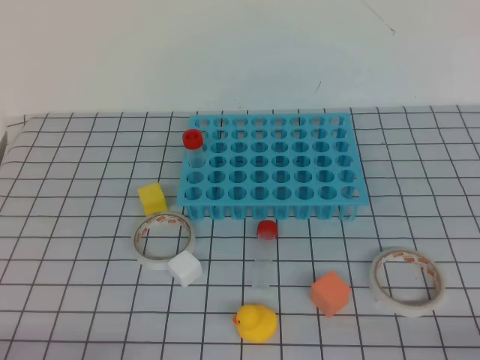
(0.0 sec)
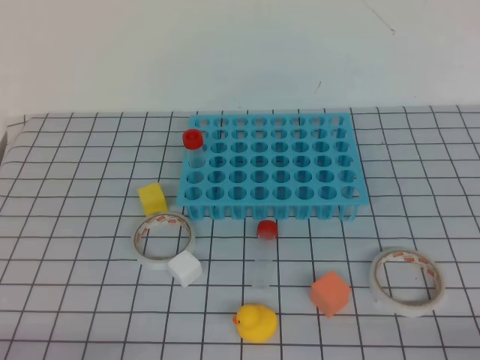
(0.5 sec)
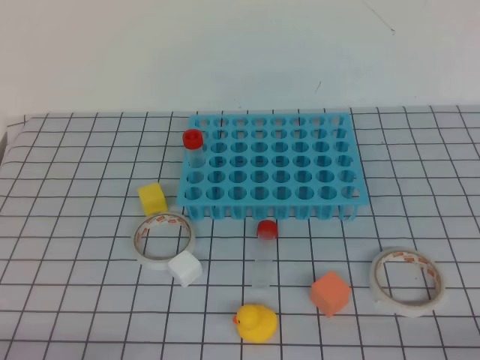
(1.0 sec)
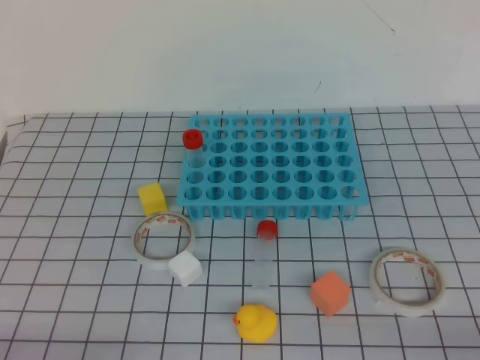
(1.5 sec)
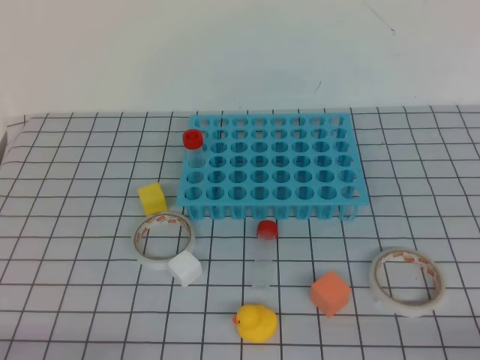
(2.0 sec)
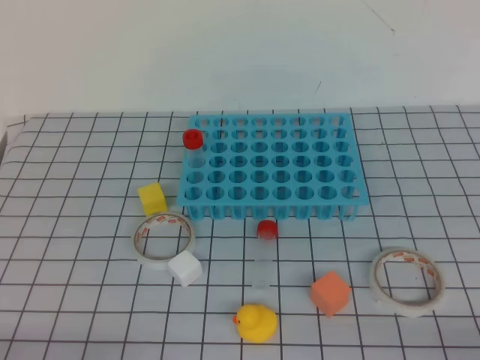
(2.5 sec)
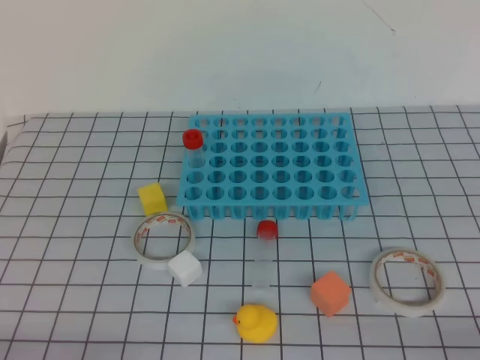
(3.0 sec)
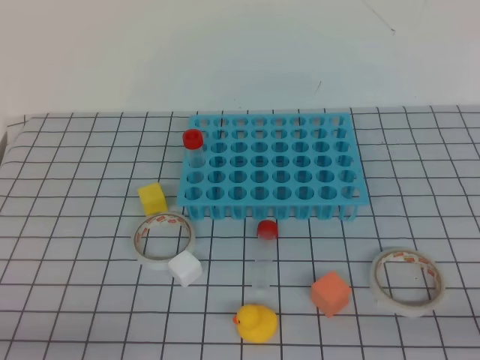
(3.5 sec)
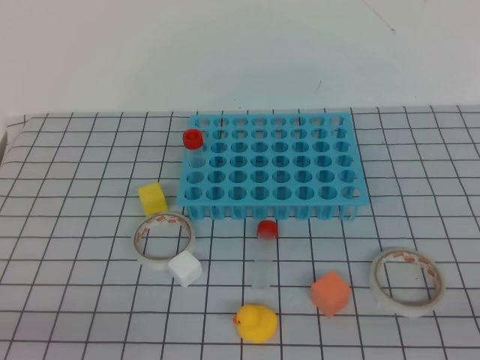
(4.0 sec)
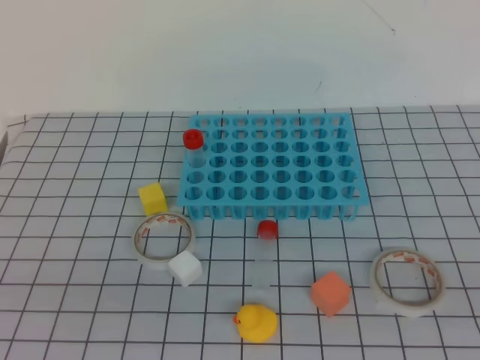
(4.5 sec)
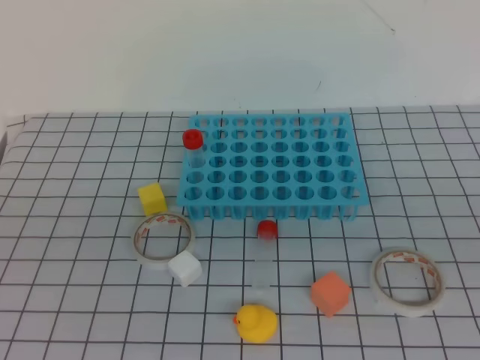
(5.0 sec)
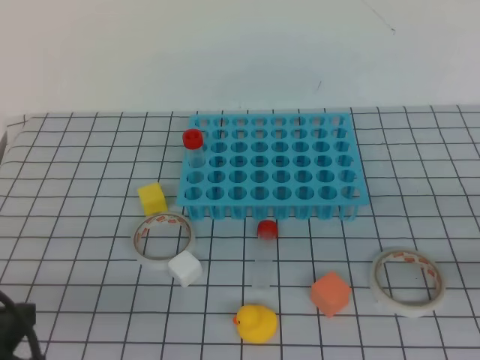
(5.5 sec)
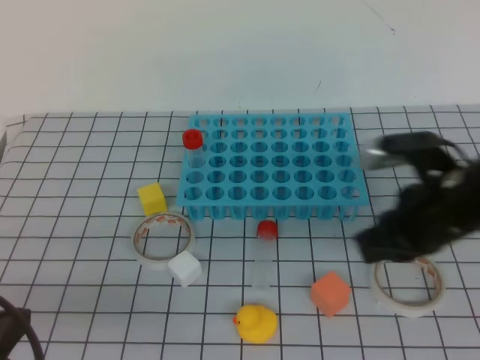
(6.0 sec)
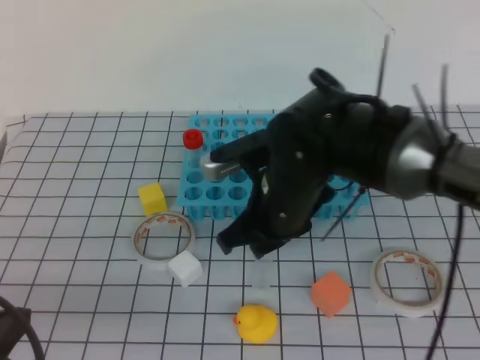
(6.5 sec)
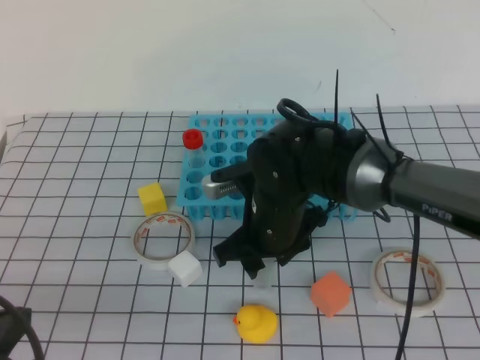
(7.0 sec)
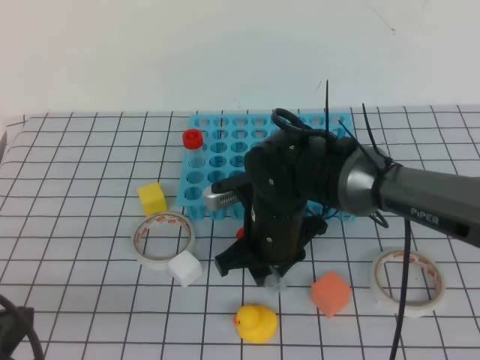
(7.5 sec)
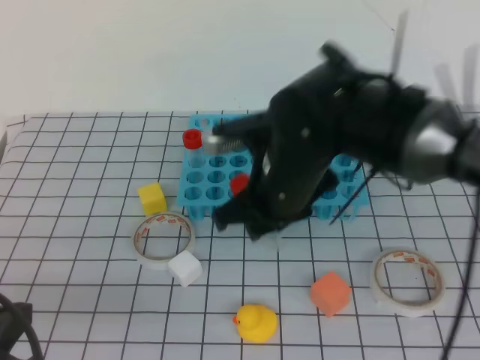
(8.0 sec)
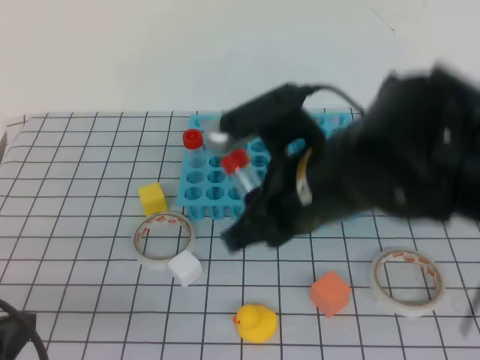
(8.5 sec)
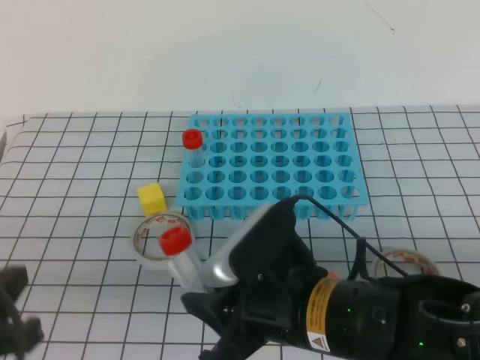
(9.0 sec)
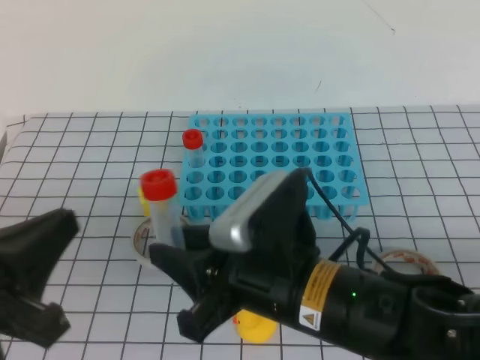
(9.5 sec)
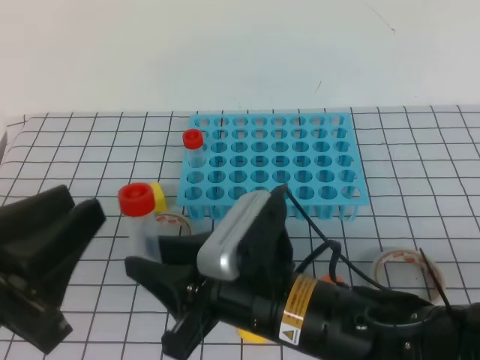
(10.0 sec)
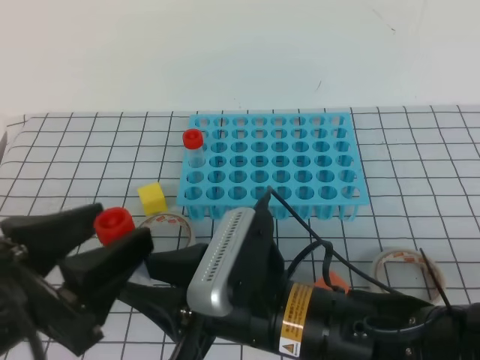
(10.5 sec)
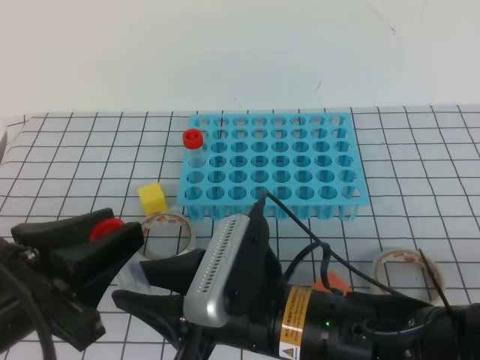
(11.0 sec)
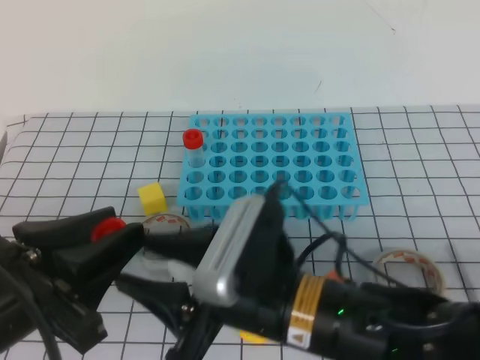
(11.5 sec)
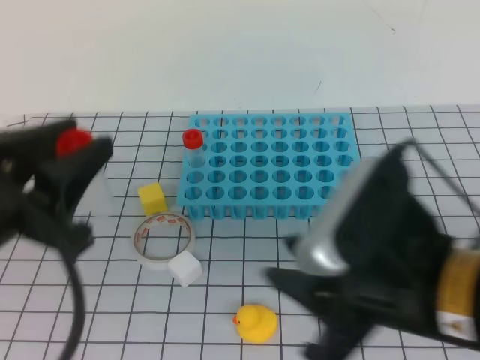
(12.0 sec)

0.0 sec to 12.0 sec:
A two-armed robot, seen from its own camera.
0.0 sec to 2.0 sec: The two grippers keep their place.
4.0 sec to 6.0 sec: The left gripper is displaced forward by about 5 cm, and travels upward and back again, approximately 10 cm each way; the right gripper moves forward and to the left, roughly 25 cm.
6.0 sec to 8.0 sec: The right gripper travels to the left by about 20 cm, and opens its fingers.
8.0 sec to 10.0 sec: The left gripper changes place by roughly 5 cm, and opens its fingers. Meanwhile the right gripper moves backward, some 15 cm.
10.0 sec to 12.0 sec: The left gripper heads forward, covering about 5 cm, and opens, then closes again. Meanwhile the right gripper heads to the right and upward, covering some 10 cm.

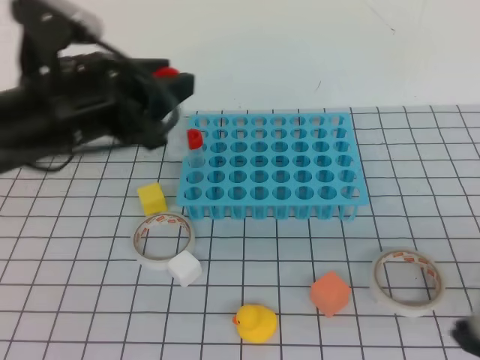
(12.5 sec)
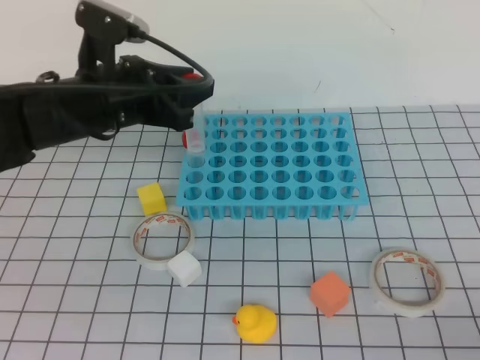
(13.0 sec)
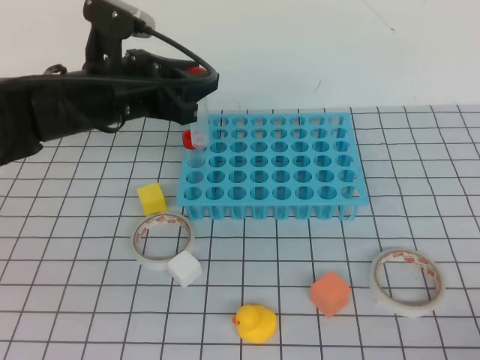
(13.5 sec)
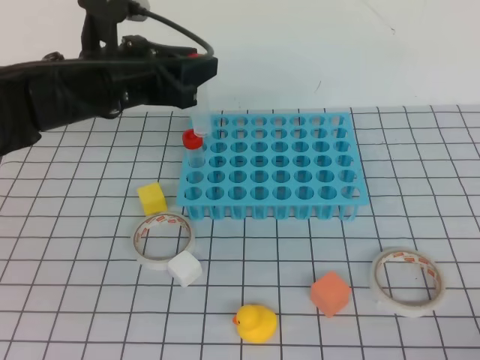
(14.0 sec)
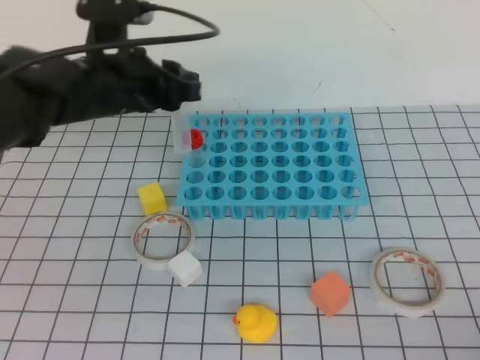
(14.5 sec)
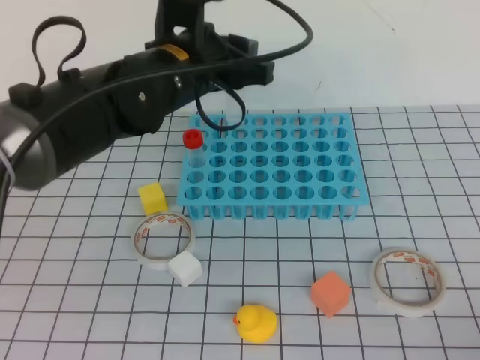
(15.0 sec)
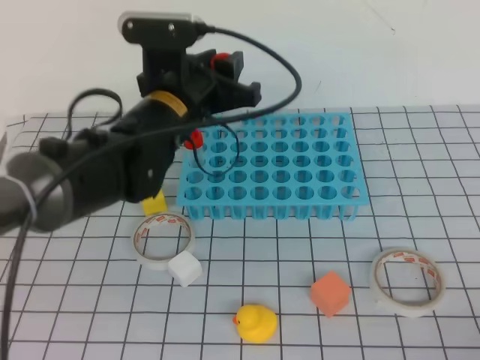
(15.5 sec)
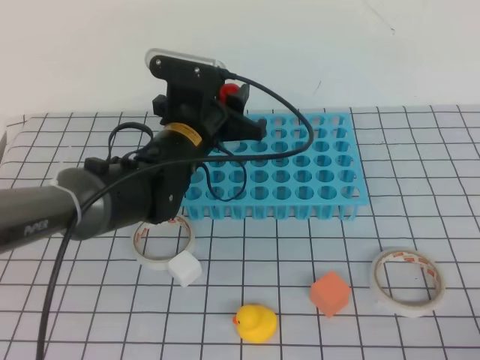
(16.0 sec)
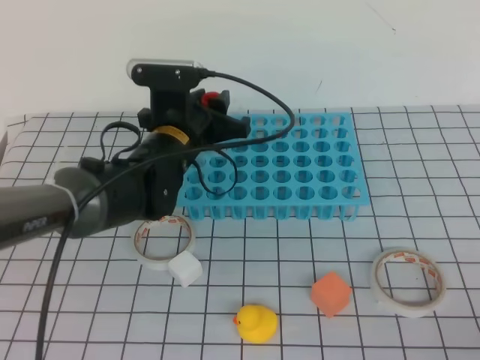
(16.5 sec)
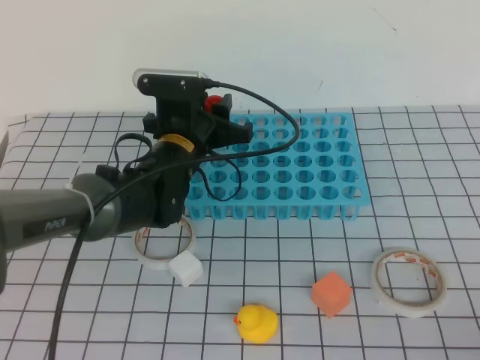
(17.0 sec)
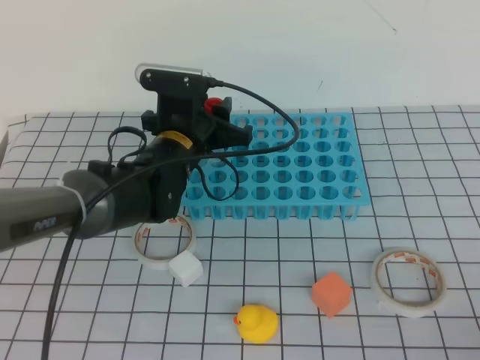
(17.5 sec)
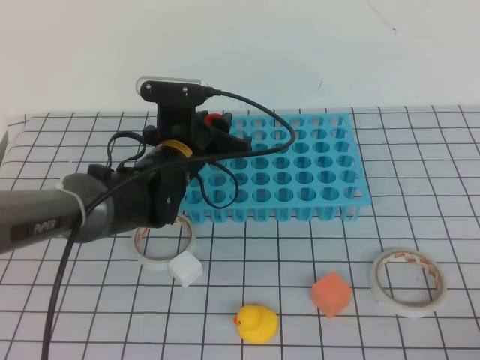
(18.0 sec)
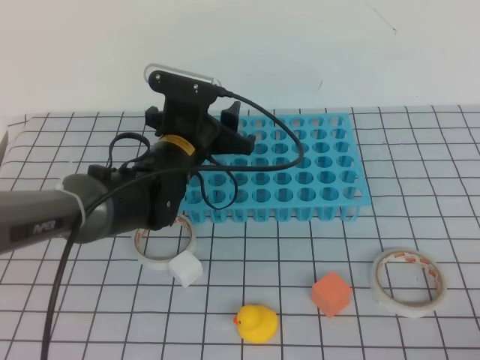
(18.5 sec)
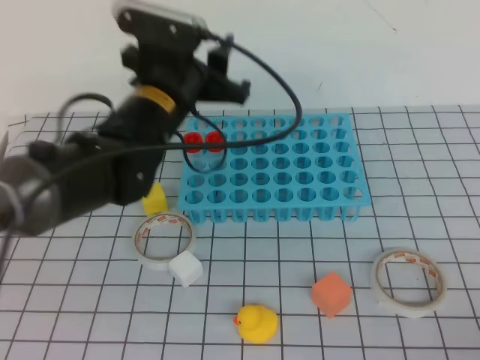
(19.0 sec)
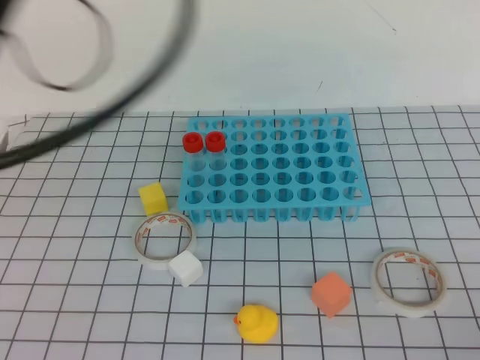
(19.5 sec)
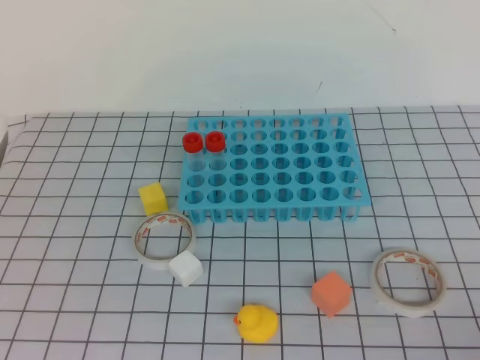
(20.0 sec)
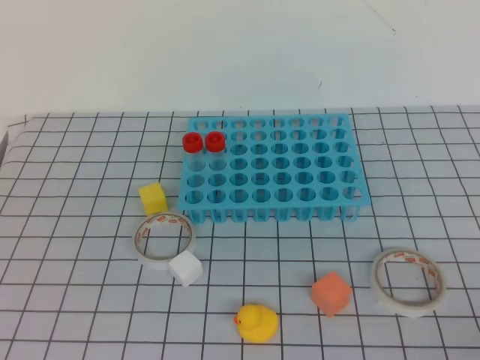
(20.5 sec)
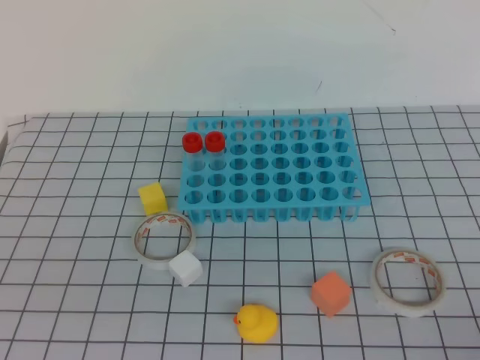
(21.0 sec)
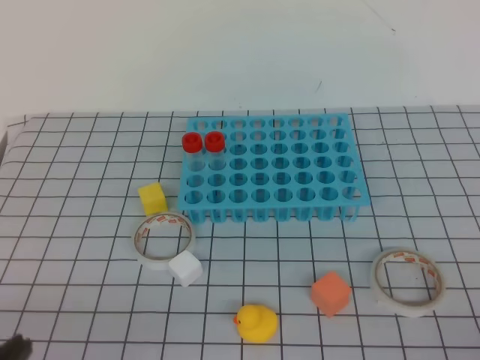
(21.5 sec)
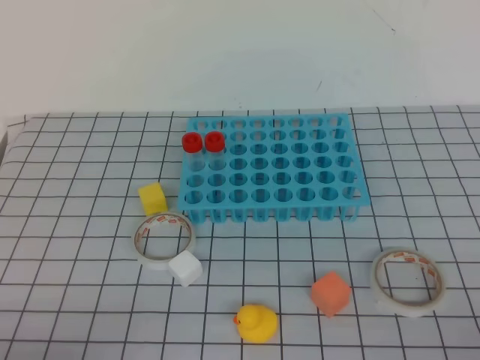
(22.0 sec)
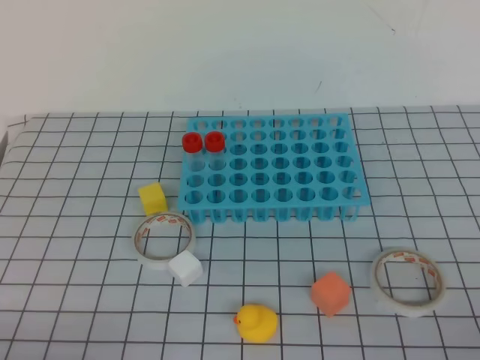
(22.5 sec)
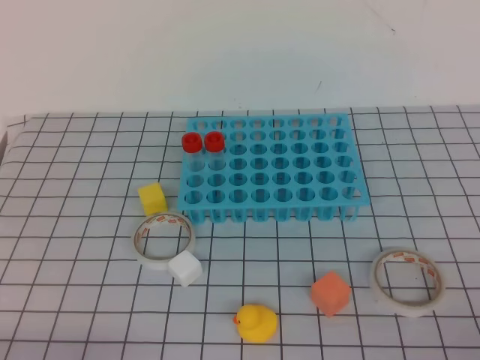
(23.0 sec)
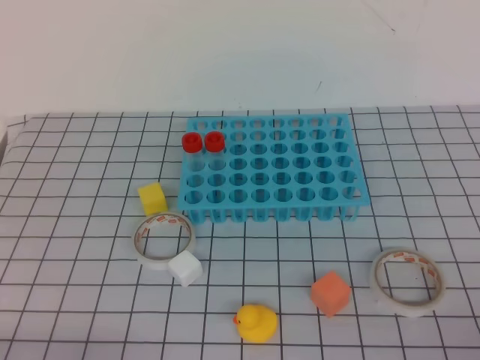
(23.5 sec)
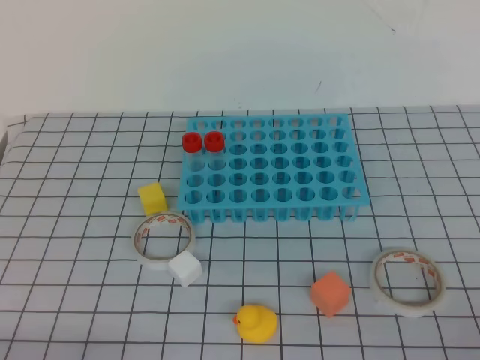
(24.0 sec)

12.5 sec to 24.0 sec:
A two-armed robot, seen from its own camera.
12.5 sec to 14.5 sec: The right gripper goes approximately 10 cm to the right and backward, while the left gripper goes some 10 cm forward.
14.5 sec to 16.5 sec: The left gripper moves downward and to the right, some 10 cm.
16.5 sec to 18.5 sec: There are only small adjustments of the grippers.
18.5 sec to 20.0 sec: The left gripper moves upward, backward and to the left, about 50 cm, and closes up.
20.0 sec to 22.0 sec: The left gripper heads downward, covering some 30 cm.
